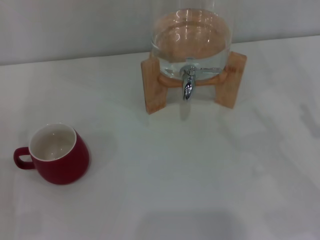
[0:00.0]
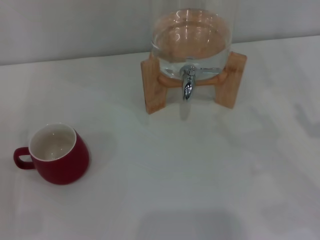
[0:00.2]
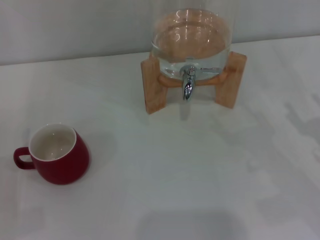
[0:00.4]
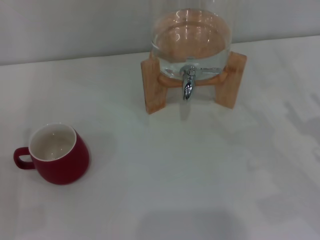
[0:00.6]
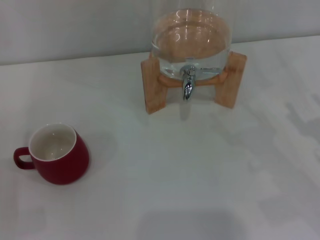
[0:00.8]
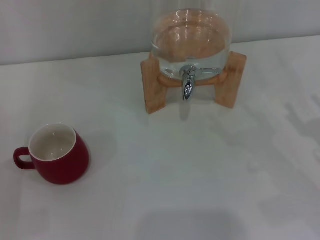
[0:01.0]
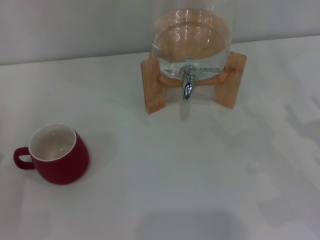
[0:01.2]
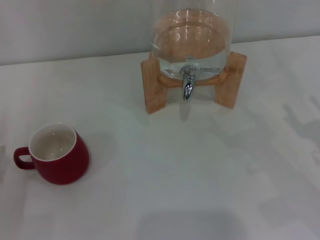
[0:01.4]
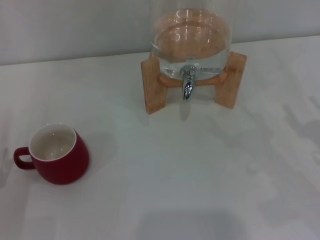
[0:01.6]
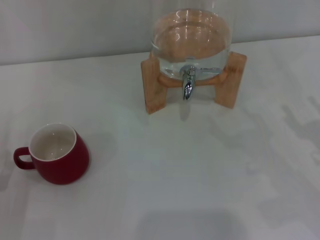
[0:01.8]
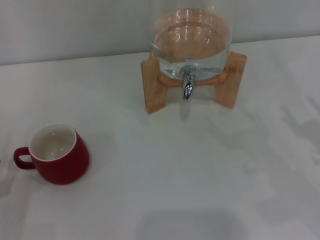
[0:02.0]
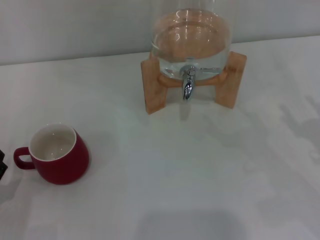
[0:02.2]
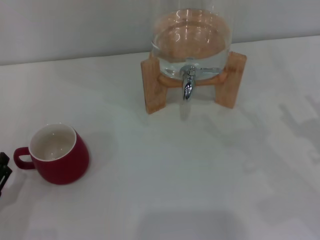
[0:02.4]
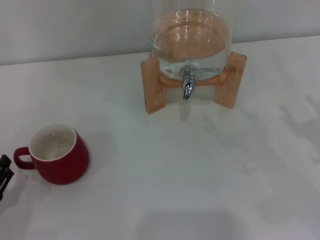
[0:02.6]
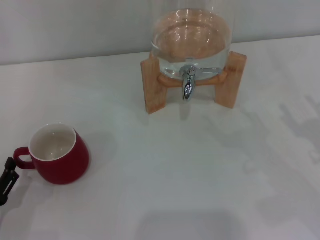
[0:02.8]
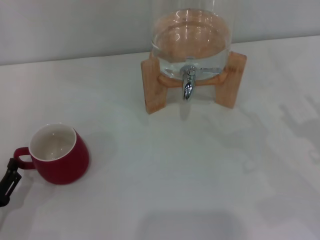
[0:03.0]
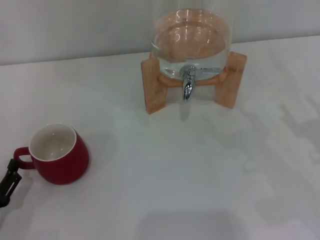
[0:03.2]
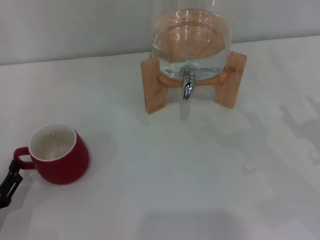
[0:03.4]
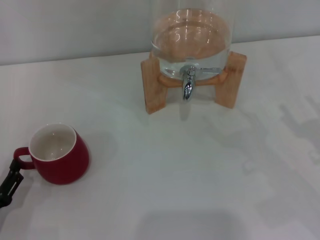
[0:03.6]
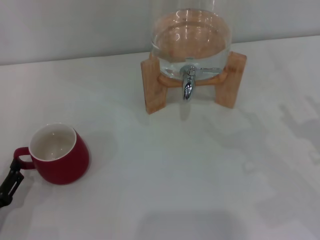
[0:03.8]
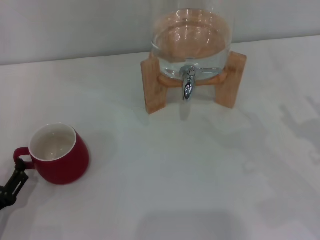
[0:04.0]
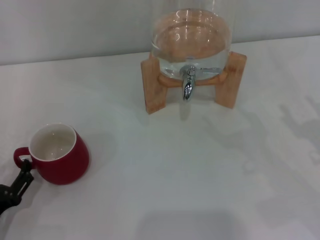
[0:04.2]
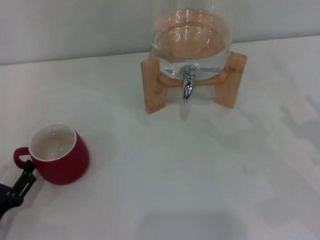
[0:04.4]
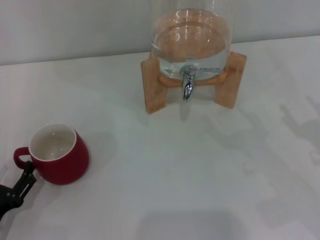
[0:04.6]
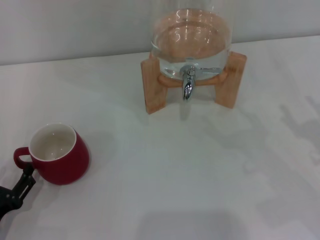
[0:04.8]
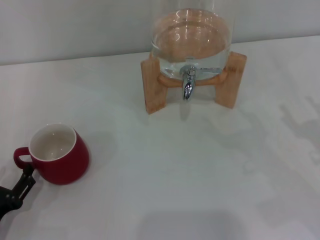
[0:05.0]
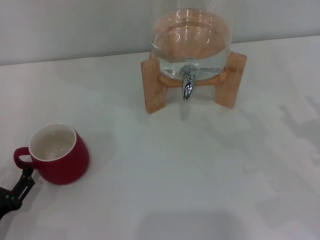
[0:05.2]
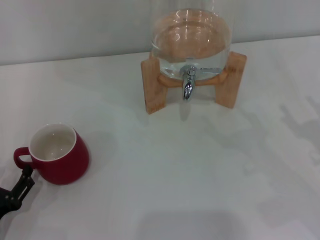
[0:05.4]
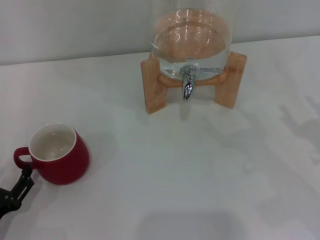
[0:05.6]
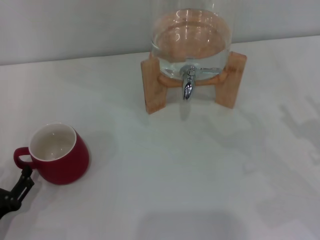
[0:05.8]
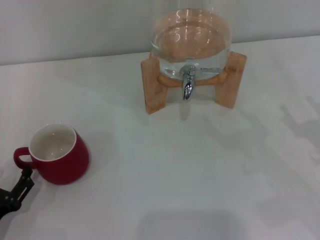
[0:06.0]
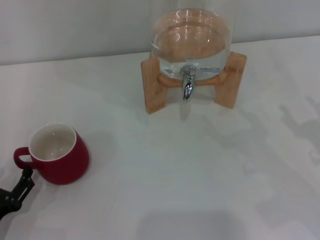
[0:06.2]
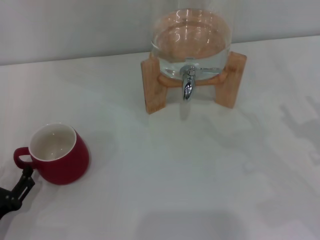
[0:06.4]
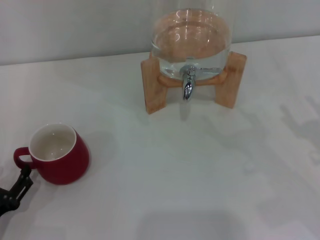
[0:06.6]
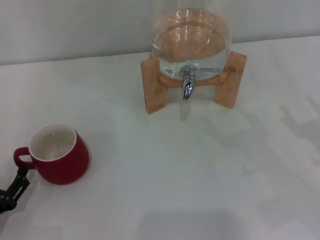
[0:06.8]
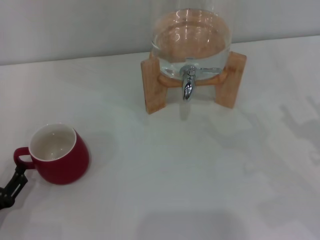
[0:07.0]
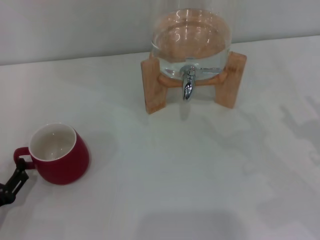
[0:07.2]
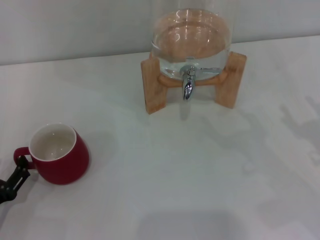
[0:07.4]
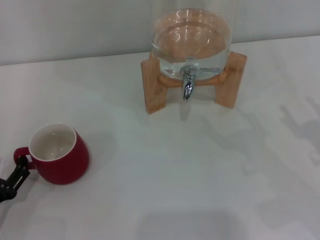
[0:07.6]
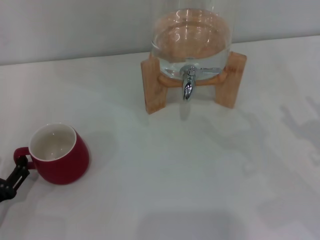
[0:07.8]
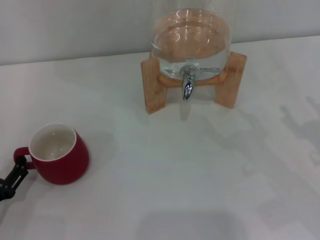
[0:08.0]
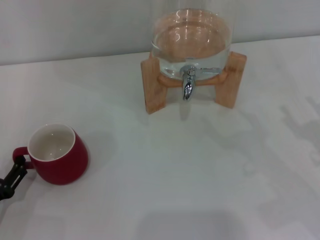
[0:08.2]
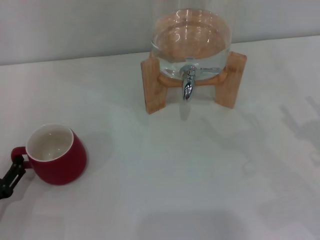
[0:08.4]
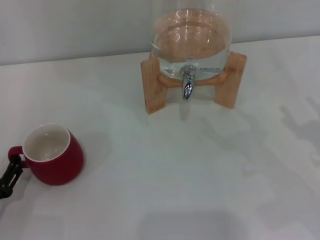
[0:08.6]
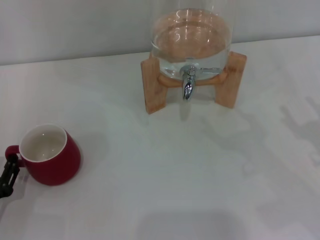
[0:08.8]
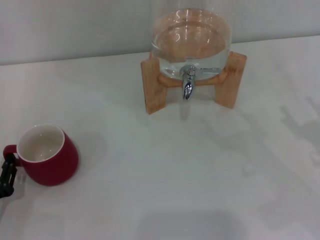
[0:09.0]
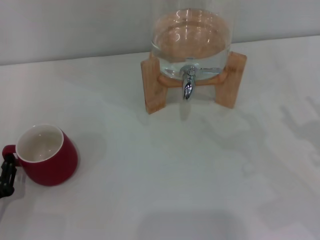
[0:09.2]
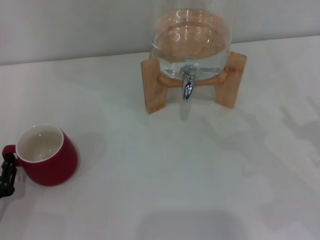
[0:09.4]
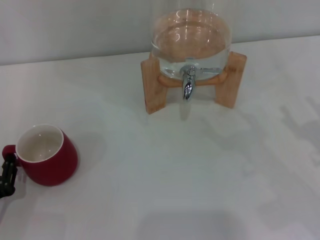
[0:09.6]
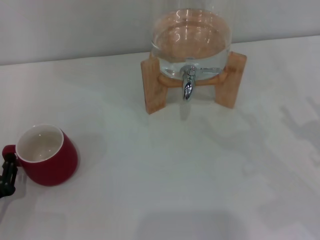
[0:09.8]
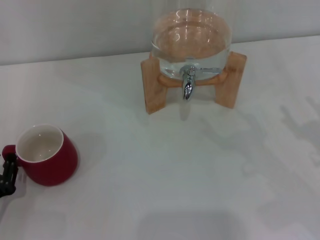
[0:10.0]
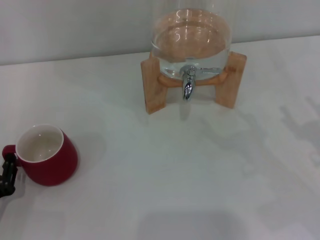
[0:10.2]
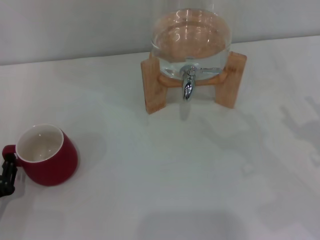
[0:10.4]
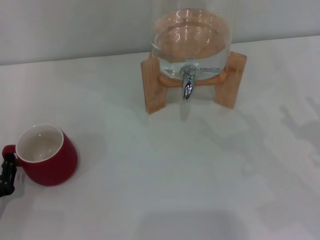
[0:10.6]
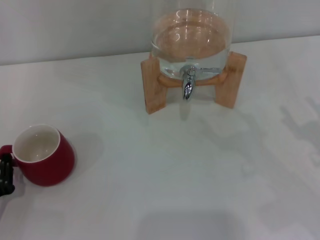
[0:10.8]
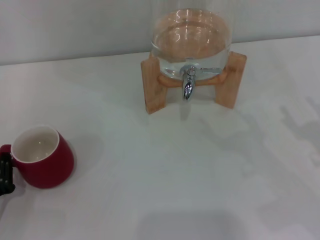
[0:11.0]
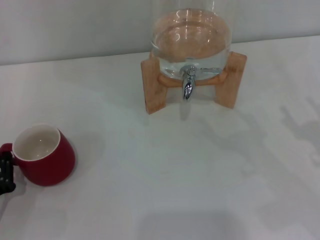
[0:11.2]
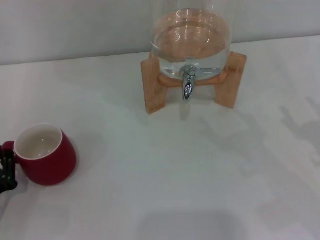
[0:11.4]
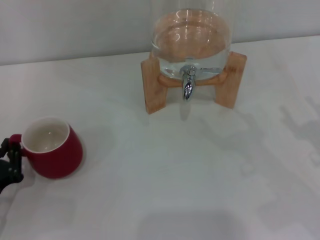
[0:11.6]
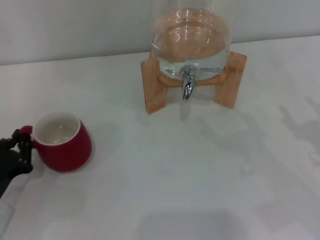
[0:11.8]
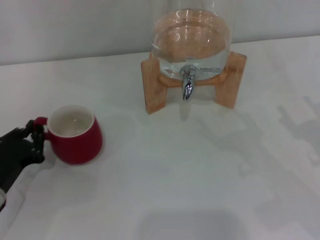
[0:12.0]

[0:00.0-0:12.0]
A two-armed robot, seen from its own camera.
Task of the whole recording: the left gripper pick up the red cup and place it horizontally under the faucet, the right gripper turn on the faucet to fill the cup, and then turn off the faucet.
0:03.0 to 0:04.4: Both grippers stay put.
0:04.4 to 0:06.0: Neither gripper changes place.
0:06.0 to 0:07.6: The grippers move only a little.
0:07.6 to 0:09.0: The left gripper closes up.
0:10.4 to 0:12.0: The left gripper is displaced forward by approximately 5 cm.

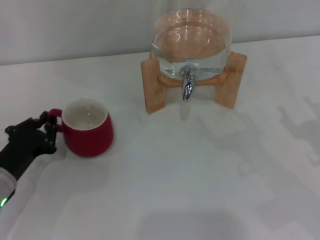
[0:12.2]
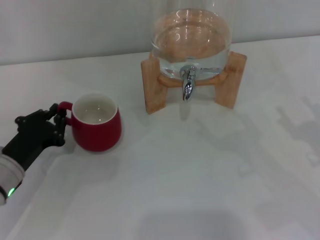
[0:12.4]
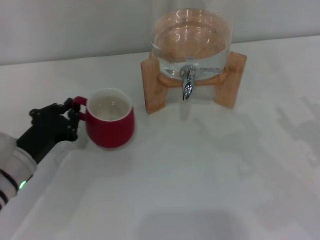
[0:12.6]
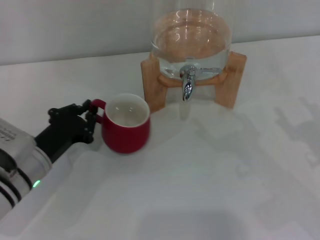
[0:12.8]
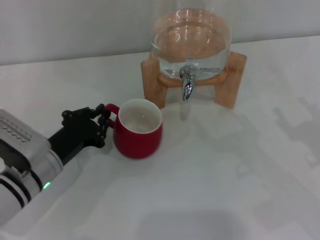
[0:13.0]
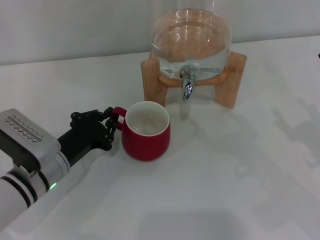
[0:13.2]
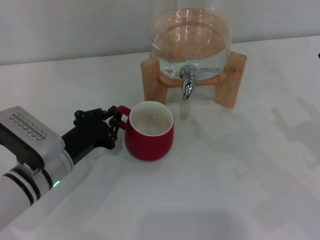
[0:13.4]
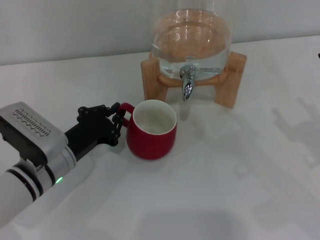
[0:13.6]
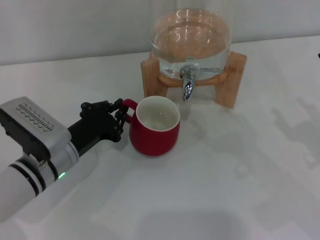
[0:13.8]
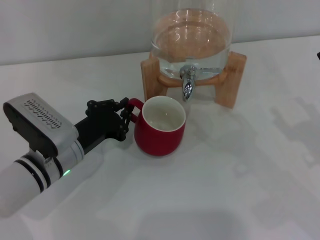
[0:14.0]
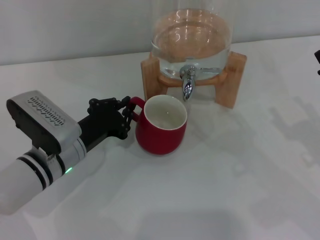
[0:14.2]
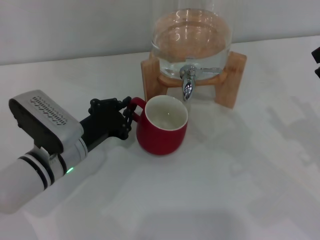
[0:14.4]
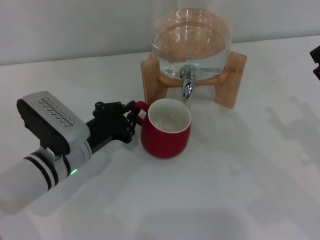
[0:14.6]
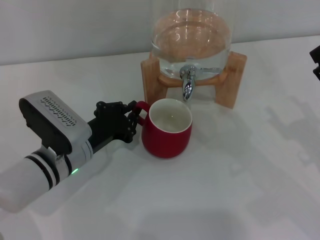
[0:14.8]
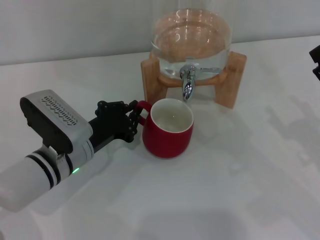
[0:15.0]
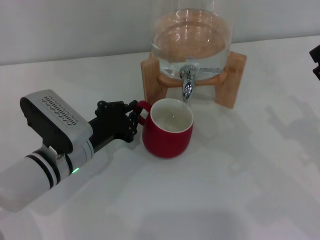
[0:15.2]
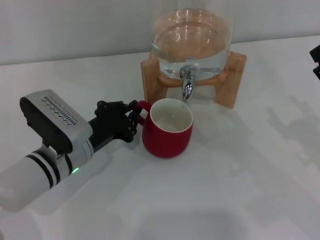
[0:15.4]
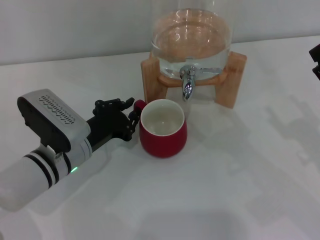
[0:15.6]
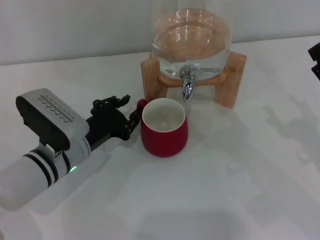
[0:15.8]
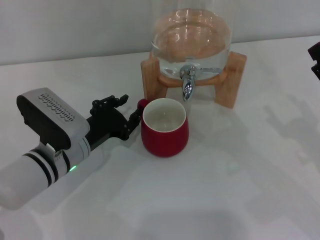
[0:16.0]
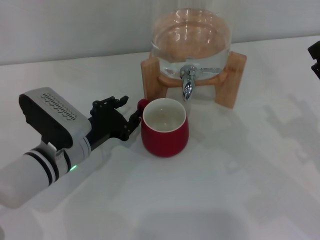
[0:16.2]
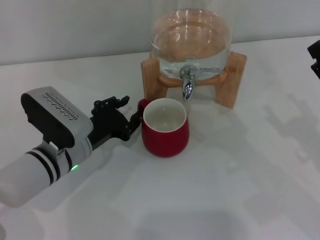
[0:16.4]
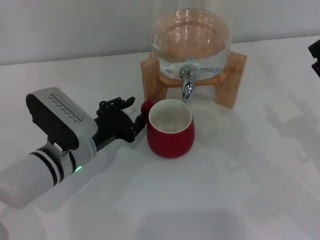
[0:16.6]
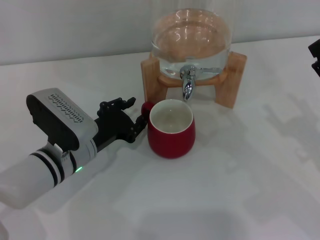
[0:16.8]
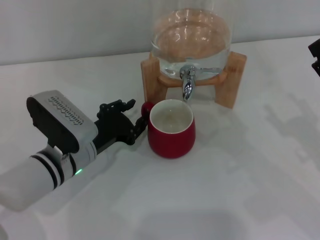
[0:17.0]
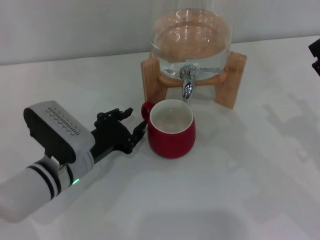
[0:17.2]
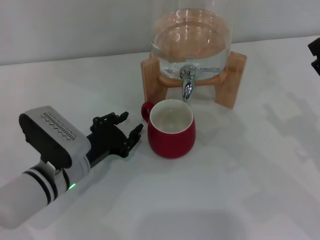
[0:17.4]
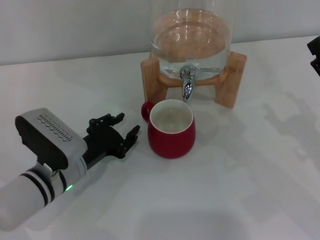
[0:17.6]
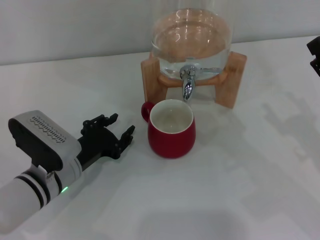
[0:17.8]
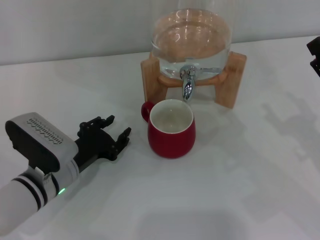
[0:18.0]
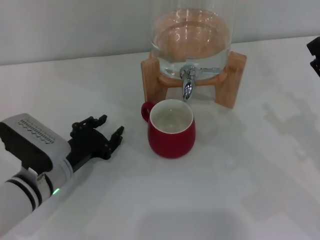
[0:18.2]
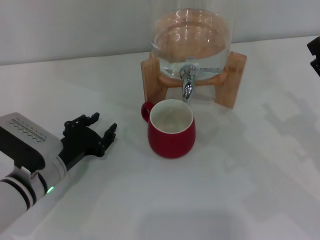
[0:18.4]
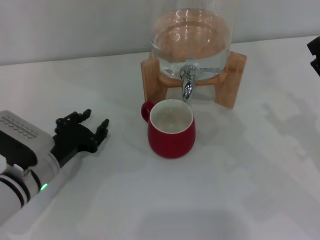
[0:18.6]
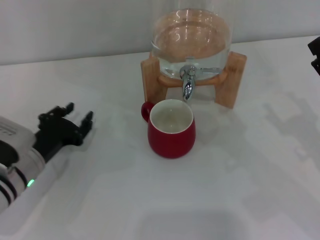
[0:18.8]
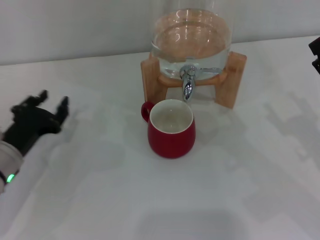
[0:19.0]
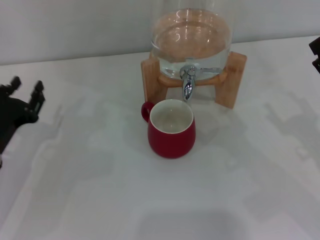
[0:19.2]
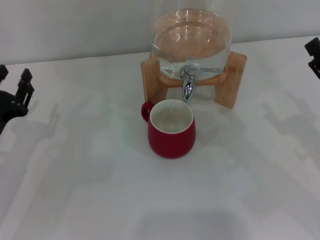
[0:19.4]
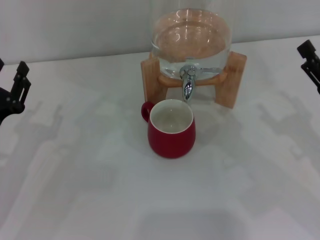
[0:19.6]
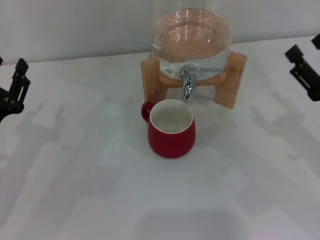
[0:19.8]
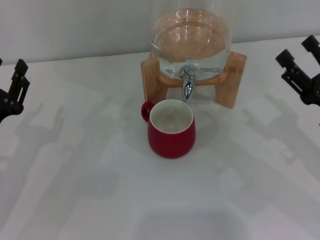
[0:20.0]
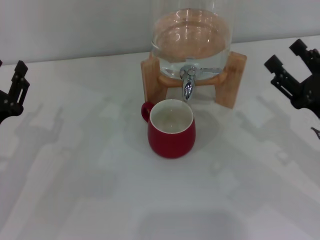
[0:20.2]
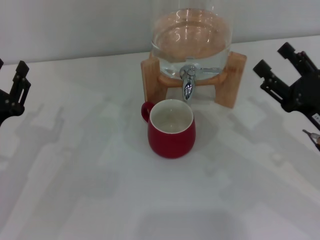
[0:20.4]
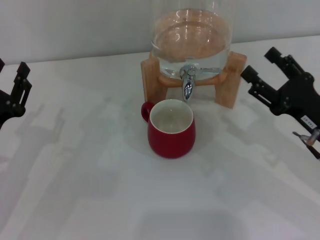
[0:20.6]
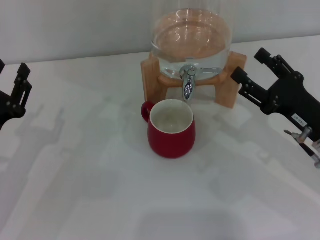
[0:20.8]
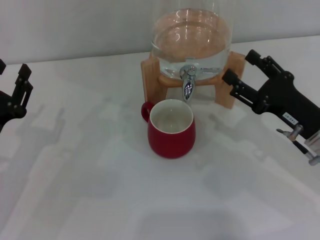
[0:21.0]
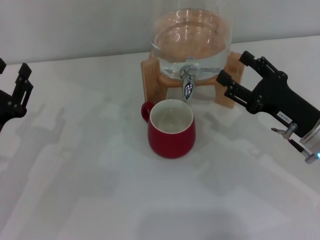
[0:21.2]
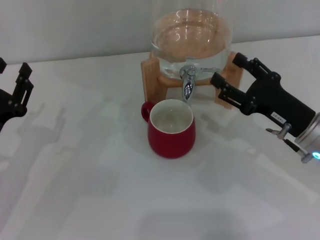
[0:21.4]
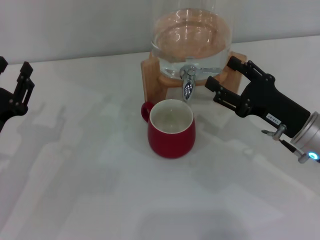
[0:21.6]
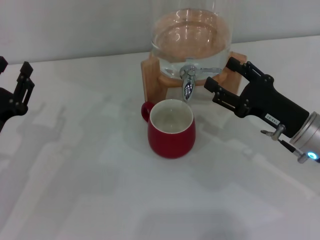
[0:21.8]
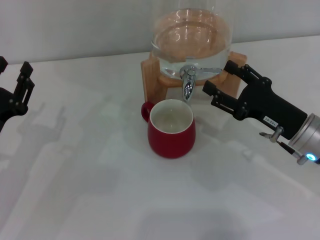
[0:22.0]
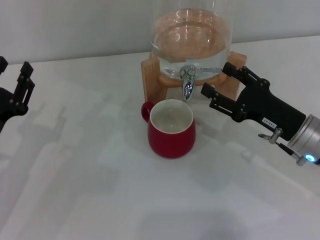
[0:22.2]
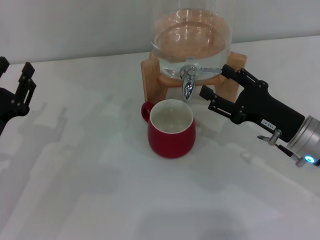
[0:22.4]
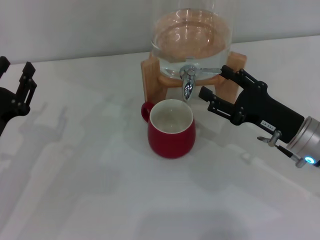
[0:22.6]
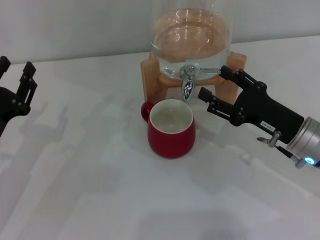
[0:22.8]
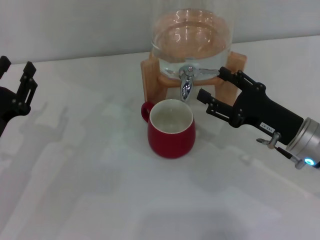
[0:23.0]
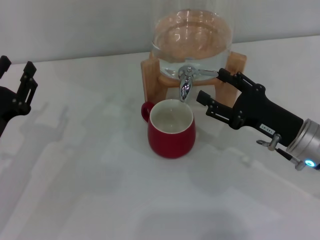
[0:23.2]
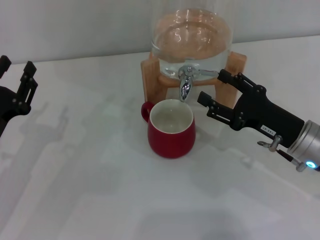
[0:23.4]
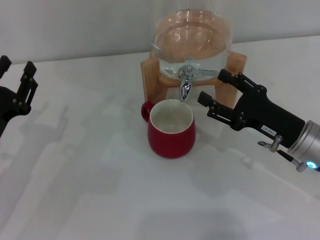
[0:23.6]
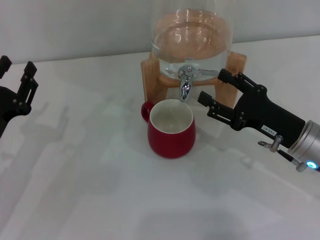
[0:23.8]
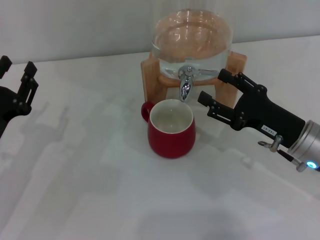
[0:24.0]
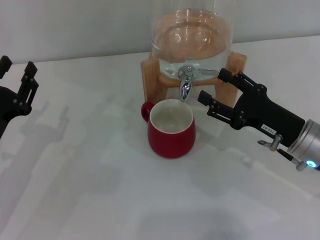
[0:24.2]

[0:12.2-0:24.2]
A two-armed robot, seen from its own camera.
Task of the whole recording: the left gripper pick up the red cup and place it horizontally under the faucet, the right gripper turn on the faucet to fill the cup, and then turn off the faucet.
Step, 0:12.2 to 0:17.8: Move the cup beneath the water dispenser nozzle with the left gripper.
0:12.2 to 0:13.8: The left gripper shifts roughly 10 cm to the right.
0:13.8 to 0:15.2: There are only small adjustments of the grippers.
0:15.2 to 0:16.6: The left gripper opens up.
0:16.6 to 0:18.2: The left gripper changes place by approximately 5 cm.
0:18.2 to 0:19.8: The left gripper goes approximately 10 cm to the left and upward.
0:19.8 to 0:21.2: The right gripper moves about 5 cm.
0:21.2 to 0:22.6: There are only small adjustments of the grippers.
0:22.6 to 0:24.2: Both grippers stay put.
